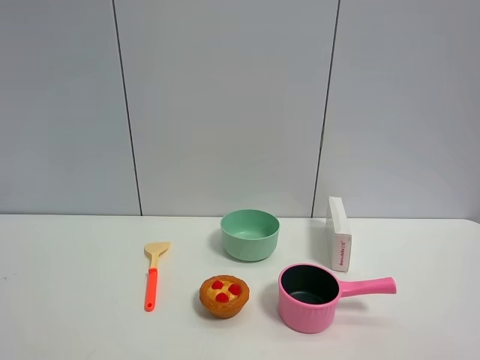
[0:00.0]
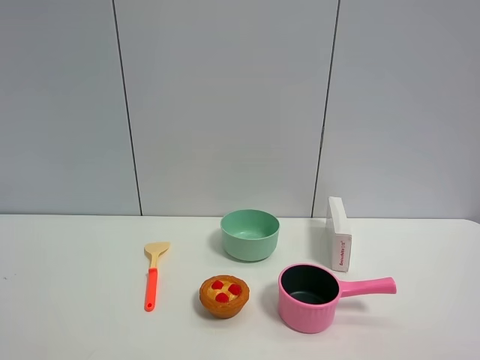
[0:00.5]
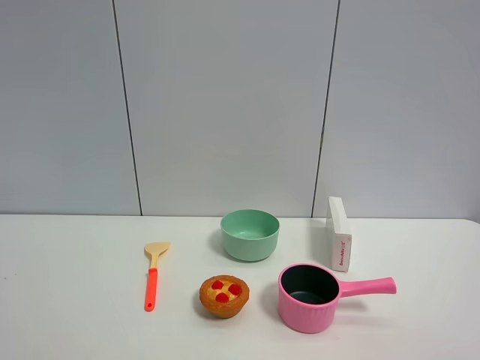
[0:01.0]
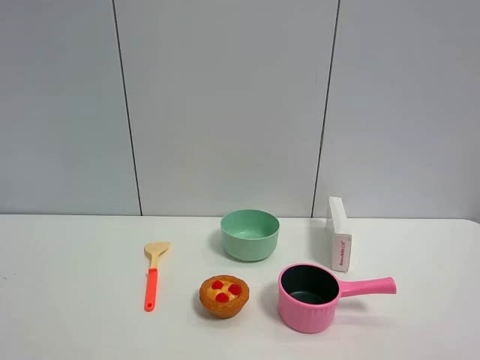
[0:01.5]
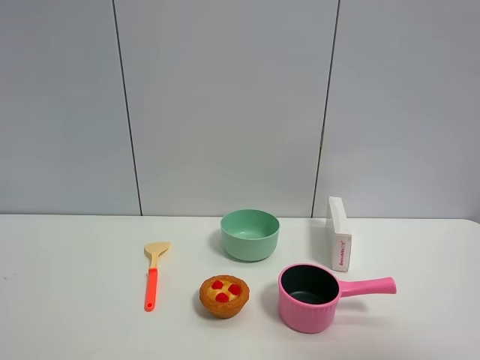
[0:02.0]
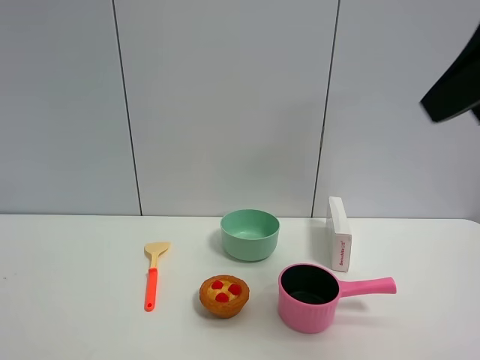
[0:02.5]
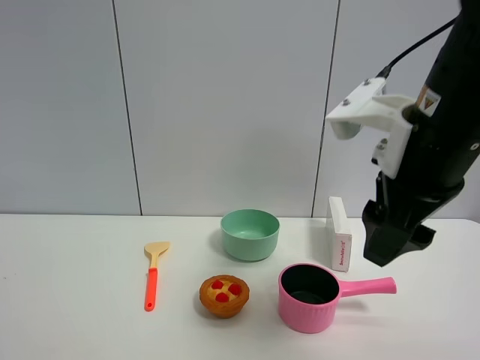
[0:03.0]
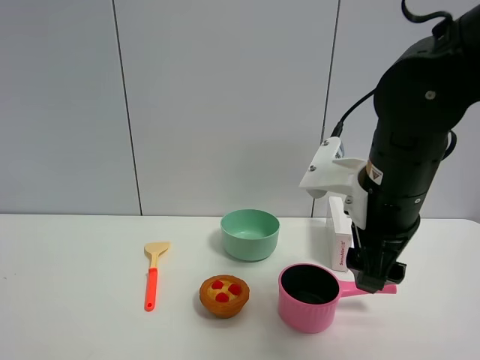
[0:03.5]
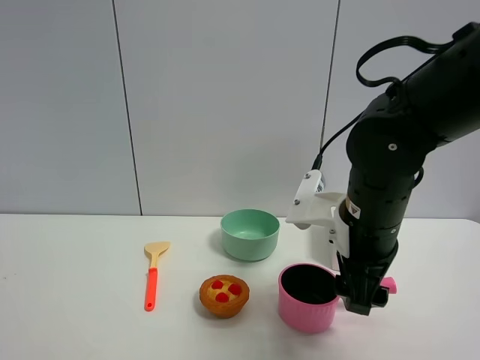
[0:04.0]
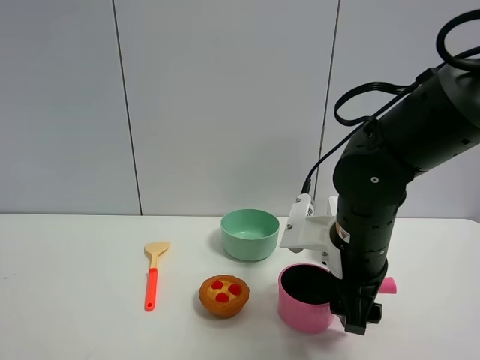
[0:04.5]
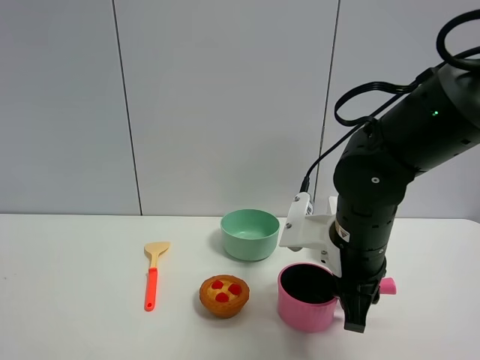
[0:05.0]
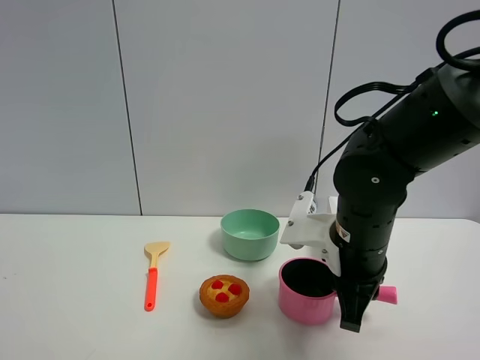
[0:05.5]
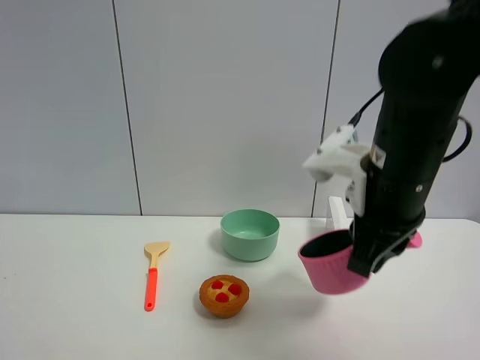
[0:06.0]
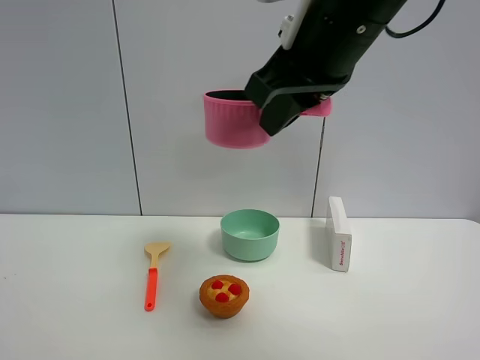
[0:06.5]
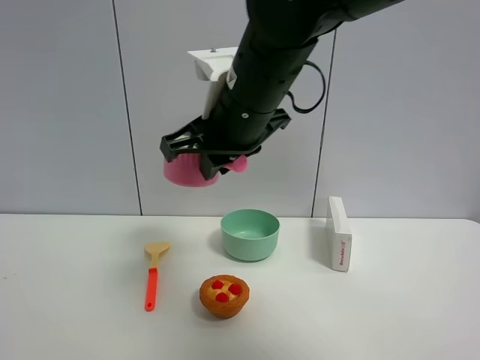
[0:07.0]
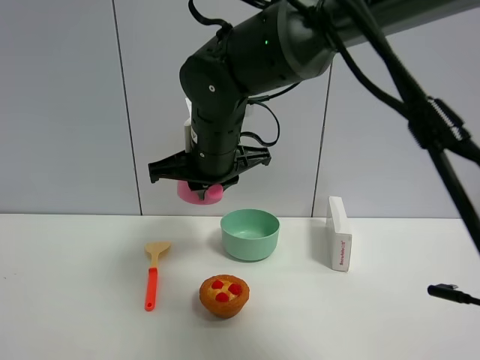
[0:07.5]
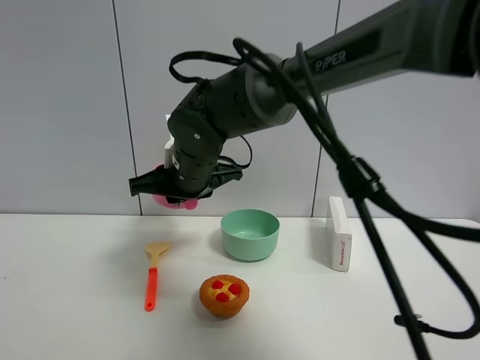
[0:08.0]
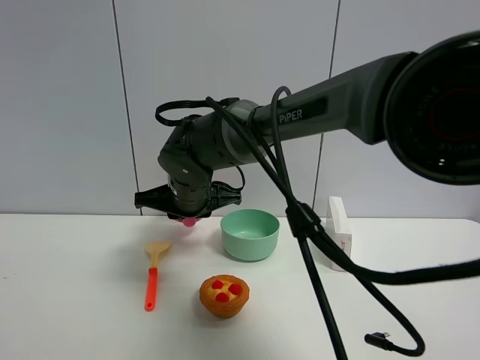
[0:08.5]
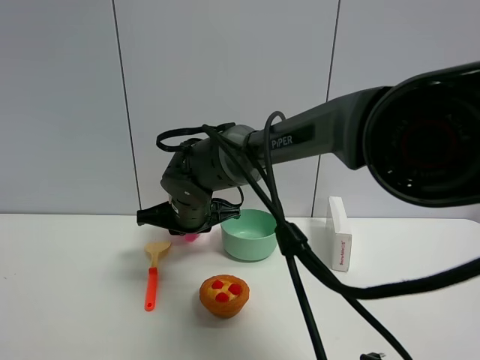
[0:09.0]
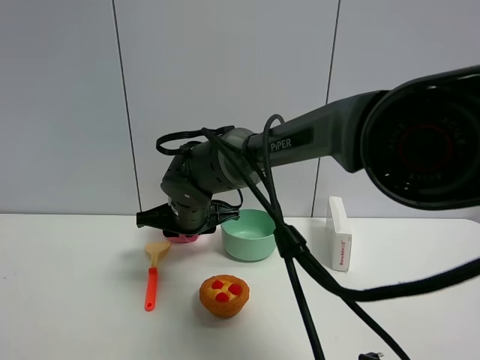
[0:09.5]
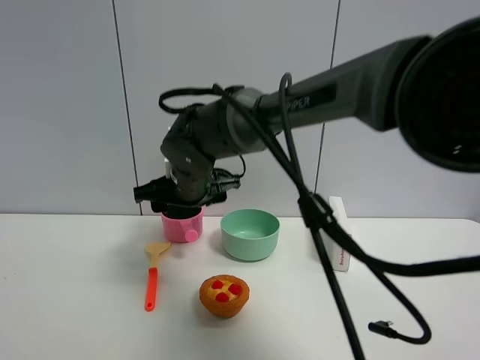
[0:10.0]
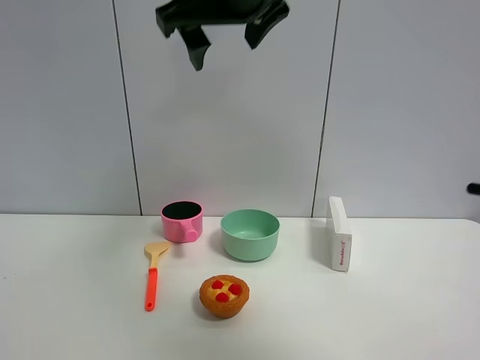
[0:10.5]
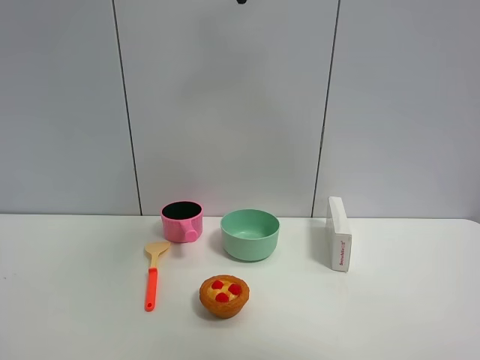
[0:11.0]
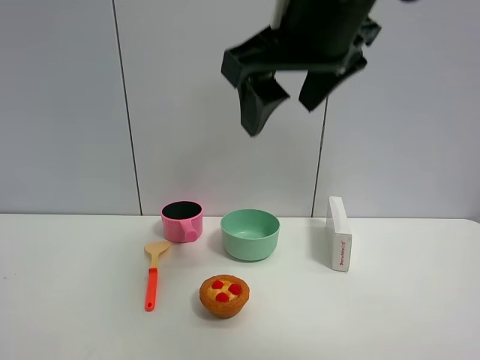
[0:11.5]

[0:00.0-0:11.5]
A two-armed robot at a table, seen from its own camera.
Task of the whole recording: the gripper move the object.
Step, 0:00.0 to 0:05.0: Grasp the pink pot with the right gripper.
Step, 0:05.5 to 0:09.5: Place the pink pot on the table with the right gripper.
0:00.0 to 0:02.0: The right gripper travels upward and forward by approximately 10 cm.
0:02.0 to 0:04.0: The right gripper travels forward, downward and to the left by roughly 35 cm.
0:04.0 to 0:06.0: The right gripper goes roughly 10 cm upward, and closes its fingers.
0:06.0 to 0:07.5: The right gripper goes some 20 cm to the left and forward.
0:07.5 to 0:09.5: The right gripper shifts roughly 10 cm downward.
0:09.5 to 0:11.5: The right gripper goes some 30 cm upward, backward and to the right, and opens up.

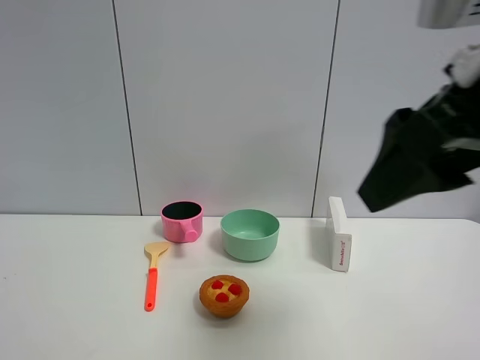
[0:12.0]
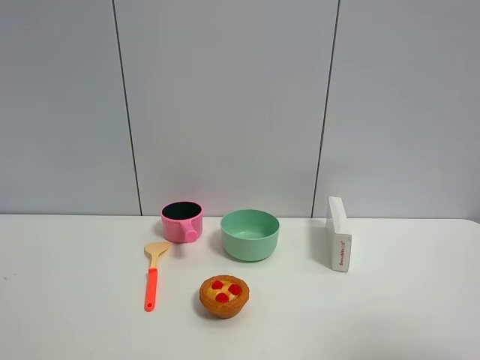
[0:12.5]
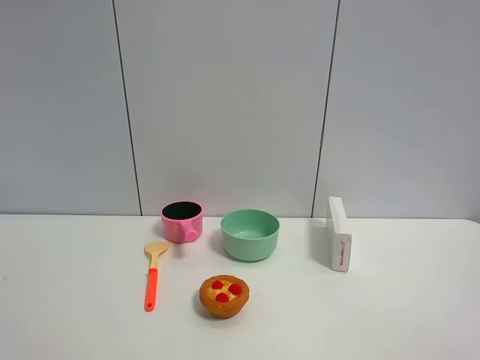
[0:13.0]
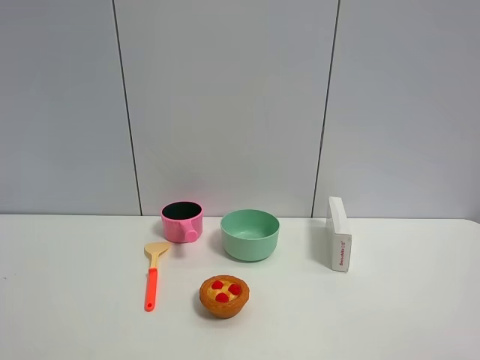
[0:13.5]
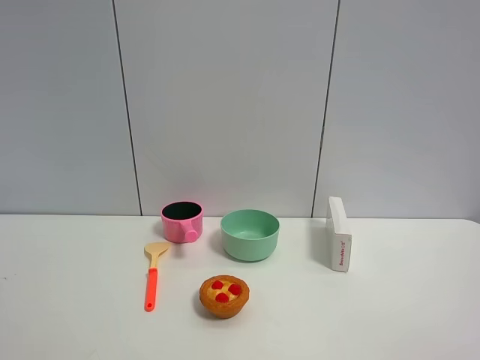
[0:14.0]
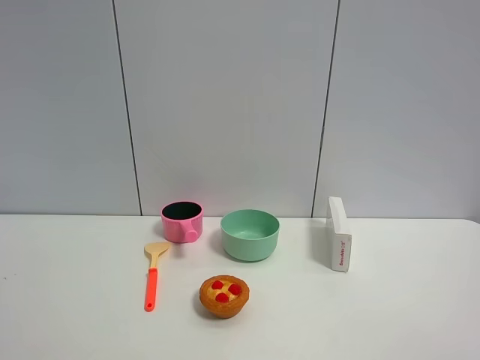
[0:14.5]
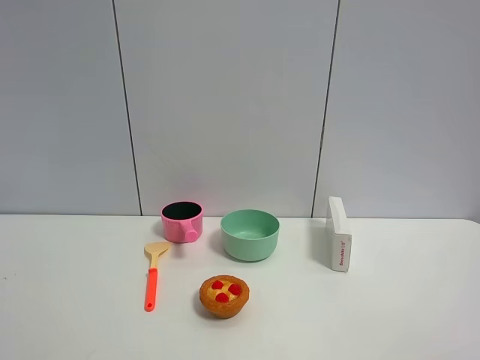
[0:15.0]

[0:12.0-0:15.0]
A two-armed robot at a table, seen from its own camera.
Task of the whole recording: the gripper move the object.
0:12.0 to 0:13.5: The right gripper shifts roughly 20 cm backward and to the right.
0:13.5 to 0:15.0: The two grippers keep their place.

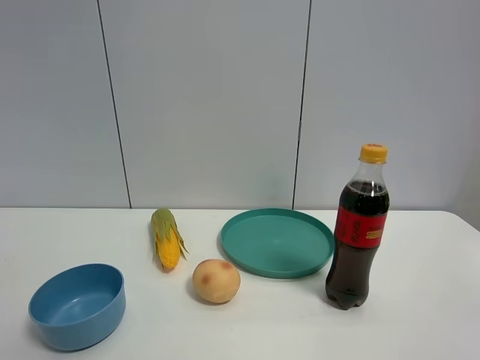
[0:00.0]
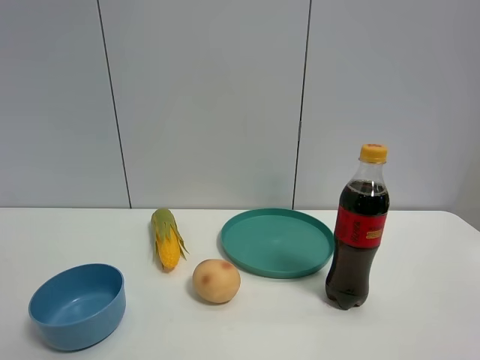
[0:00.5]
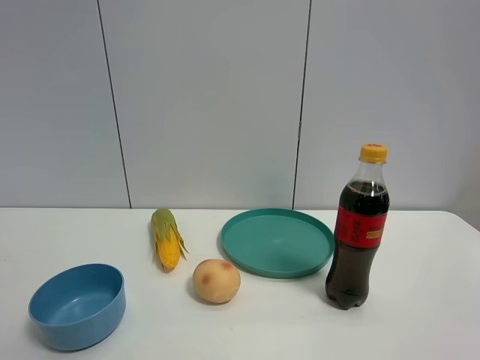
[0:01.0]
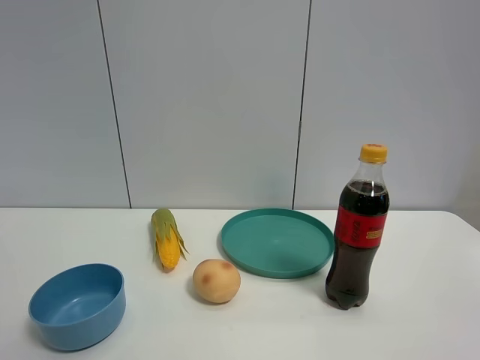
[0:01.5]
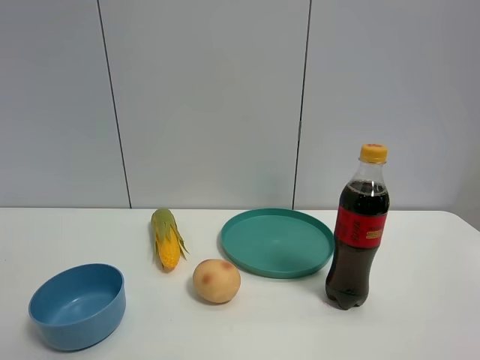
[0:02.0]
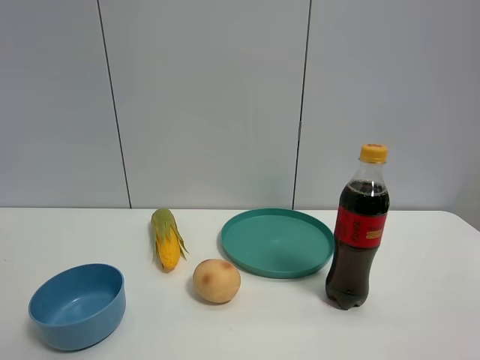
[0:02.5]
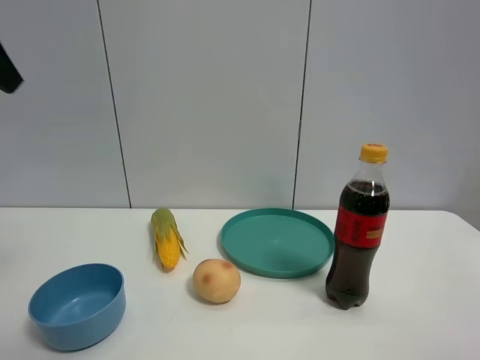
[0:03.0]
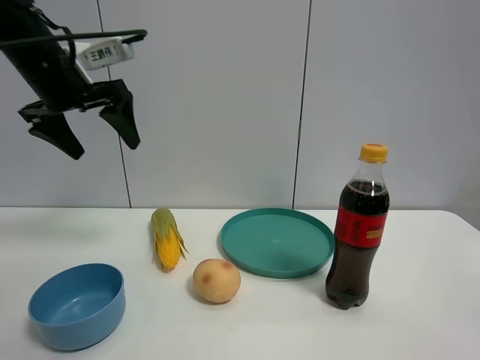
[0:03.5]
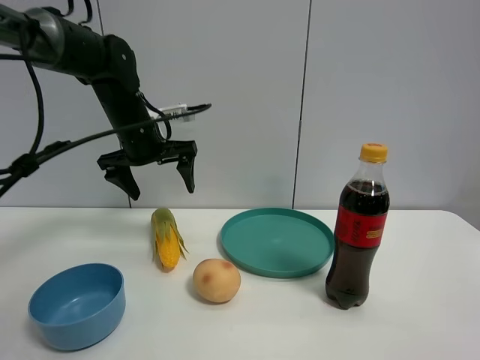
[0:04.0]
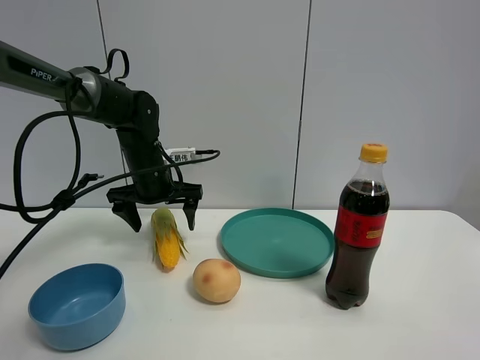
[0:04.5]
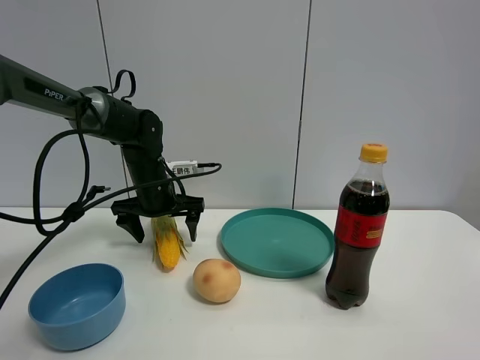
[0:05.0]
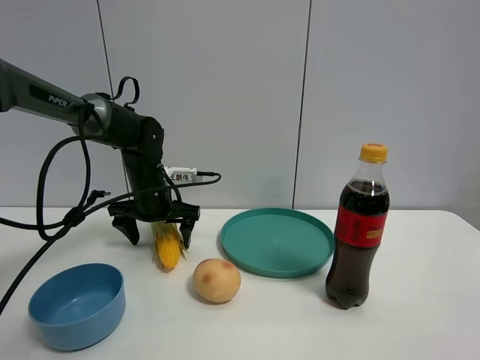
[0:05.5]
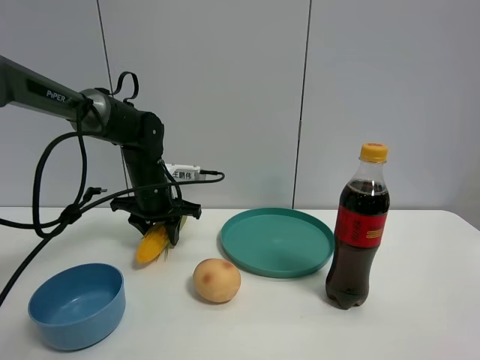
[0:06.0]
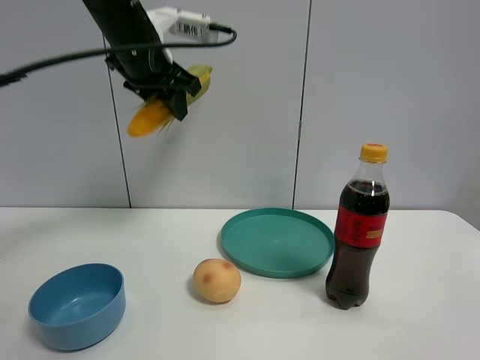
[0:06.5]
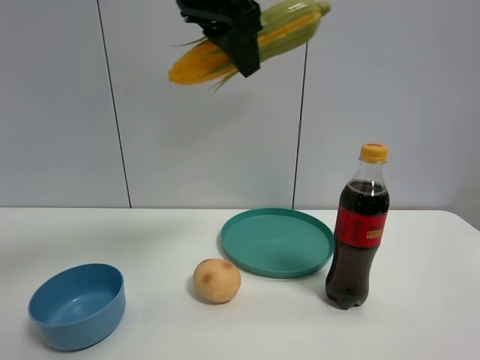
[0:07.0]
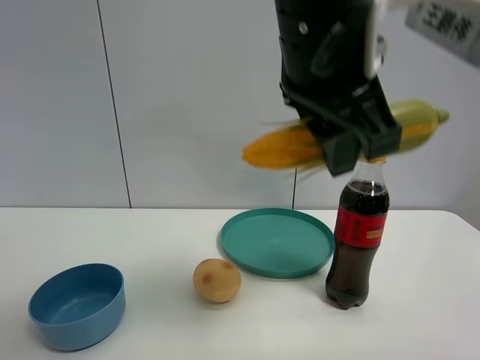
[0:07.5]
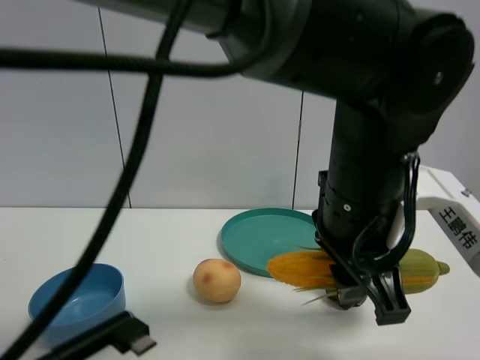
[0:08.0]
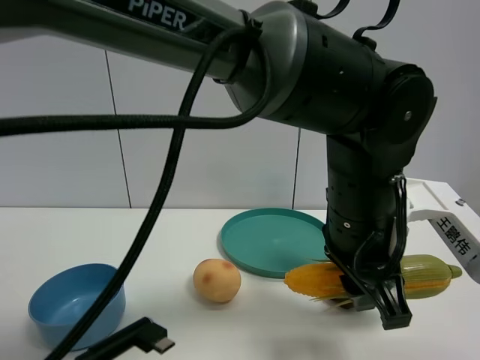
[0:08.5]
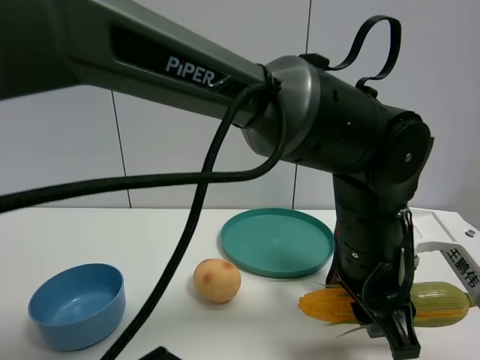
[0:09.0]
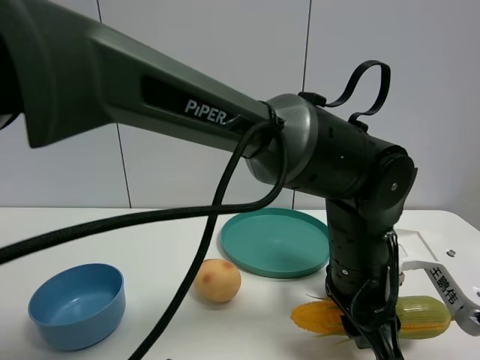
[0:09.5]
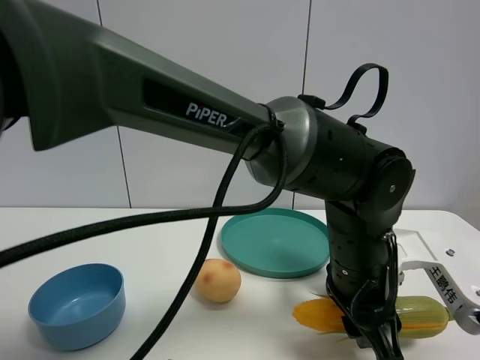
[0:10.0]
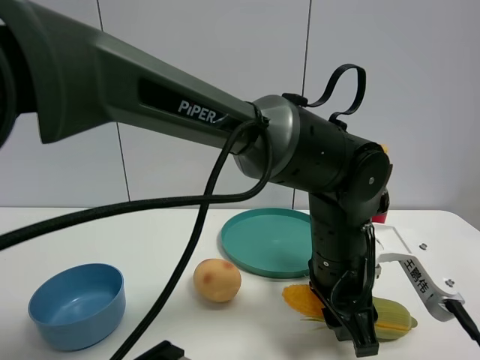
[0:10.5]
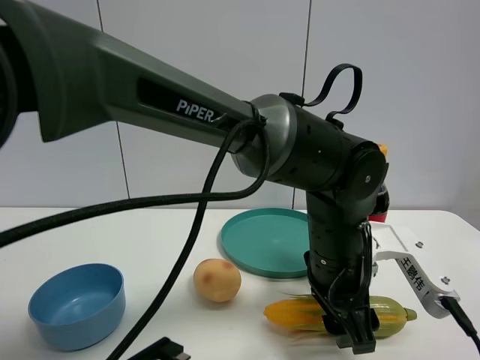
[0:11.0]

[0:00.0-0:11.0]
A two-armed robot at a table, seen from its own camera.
Task of the whole recording: the gripper move the object.
Step, 0:00.0 to 0:05.5: Grasp the corn with the left gripper.
Step, 0:06.0 to 0:10.5: Place the corn on the table with the left gripper.
0:00.0 to 0:02.0: Both grippers stay about where they are.
0:02.0 to 0:03.5: The left gripper is displaced forward by some 40 cm.
0:03.5 to 0:05.5: The left gripper shifts approximately 20 cm downward and to the right.
0:05.5 to 0:07.5: The left gripper is displaced backward, to the right and upward by approximately 40 cm, and closes its fingers.
0:07.5 to 0:09.0: The left gripper travels downward by about 15 cm.
0:09.0 to 0:11.0: The left gripper opens its fingers.
